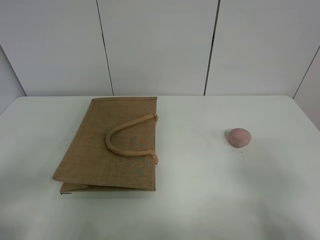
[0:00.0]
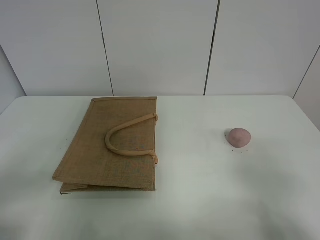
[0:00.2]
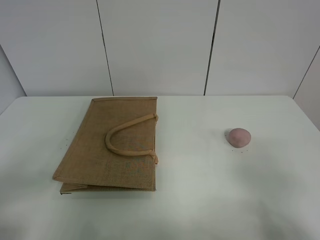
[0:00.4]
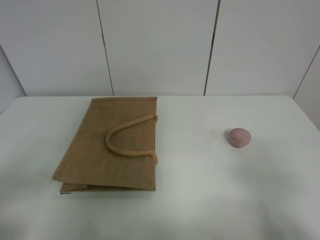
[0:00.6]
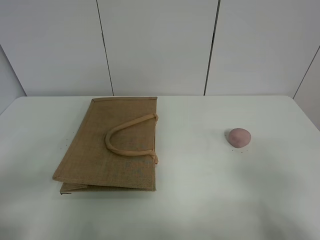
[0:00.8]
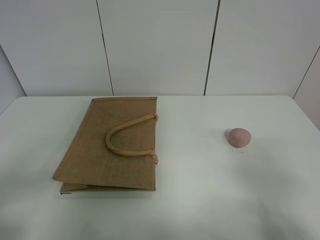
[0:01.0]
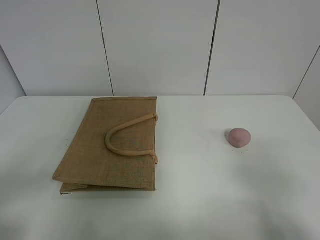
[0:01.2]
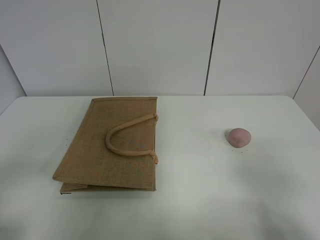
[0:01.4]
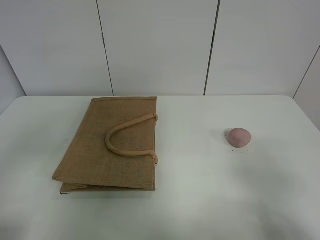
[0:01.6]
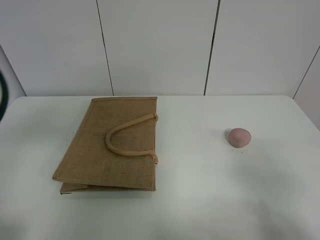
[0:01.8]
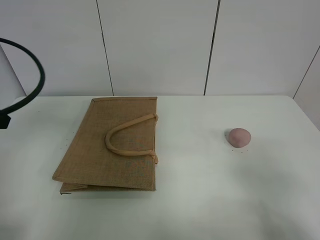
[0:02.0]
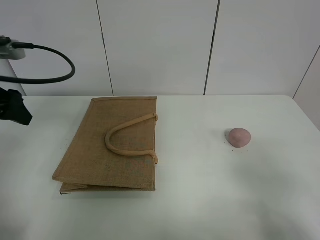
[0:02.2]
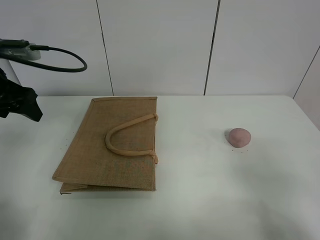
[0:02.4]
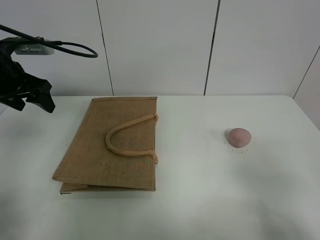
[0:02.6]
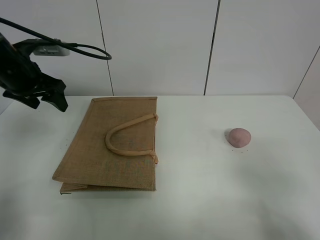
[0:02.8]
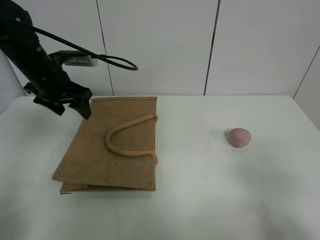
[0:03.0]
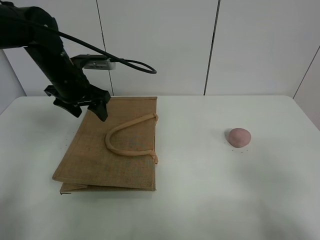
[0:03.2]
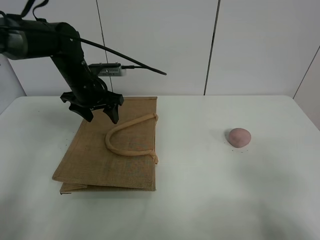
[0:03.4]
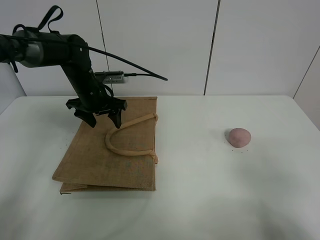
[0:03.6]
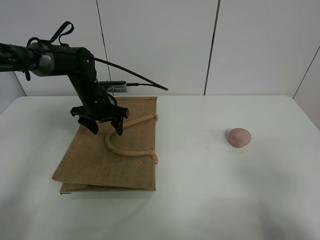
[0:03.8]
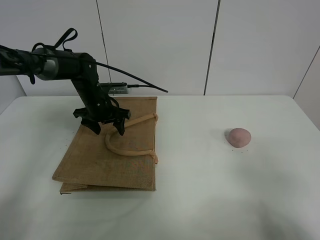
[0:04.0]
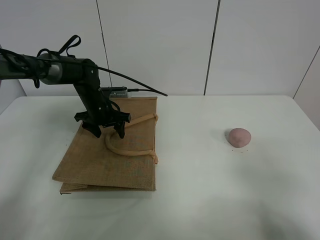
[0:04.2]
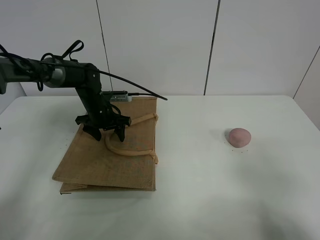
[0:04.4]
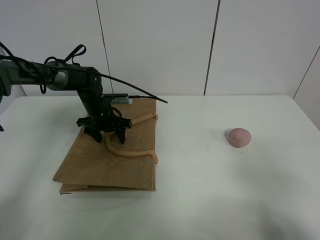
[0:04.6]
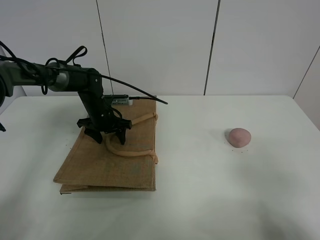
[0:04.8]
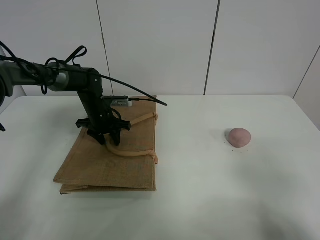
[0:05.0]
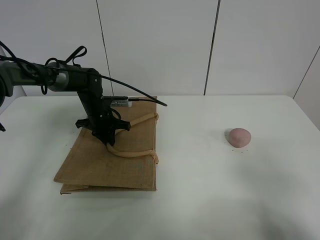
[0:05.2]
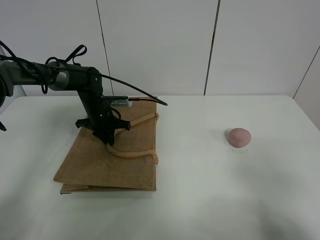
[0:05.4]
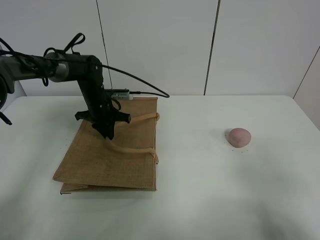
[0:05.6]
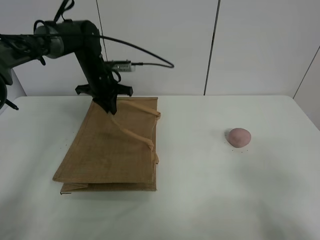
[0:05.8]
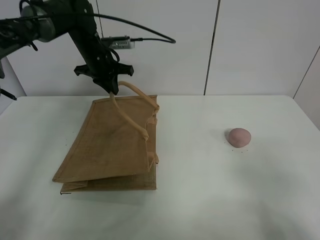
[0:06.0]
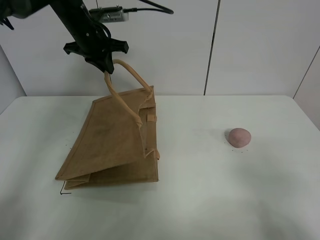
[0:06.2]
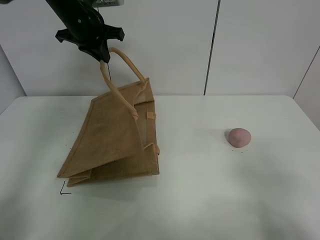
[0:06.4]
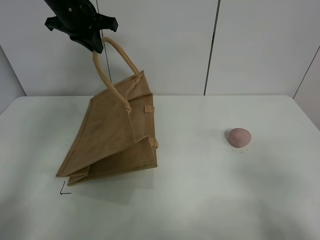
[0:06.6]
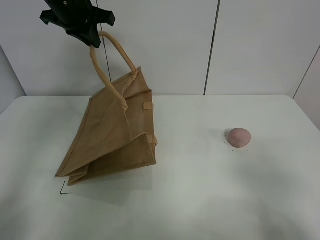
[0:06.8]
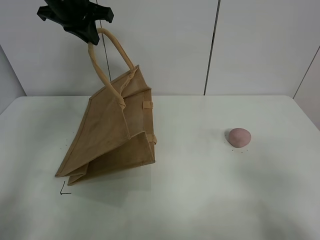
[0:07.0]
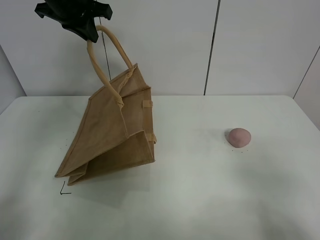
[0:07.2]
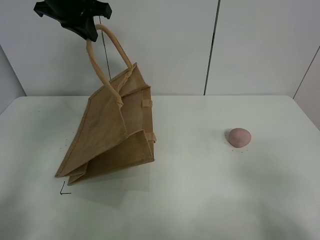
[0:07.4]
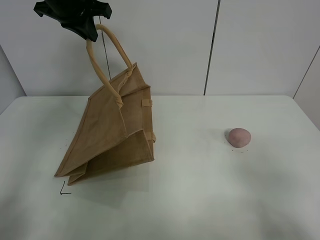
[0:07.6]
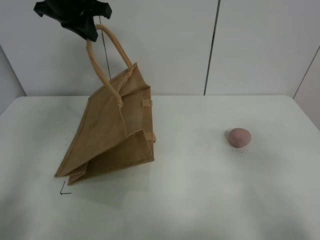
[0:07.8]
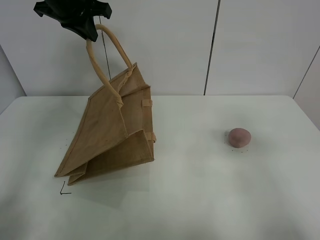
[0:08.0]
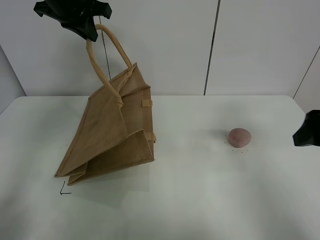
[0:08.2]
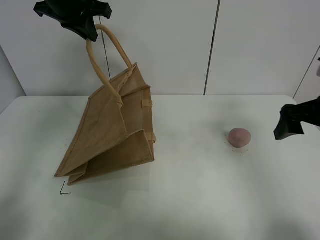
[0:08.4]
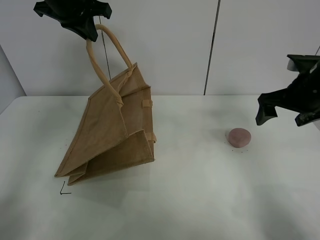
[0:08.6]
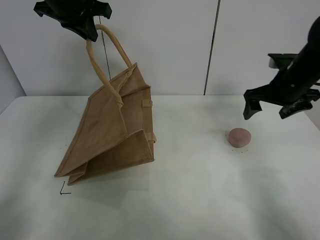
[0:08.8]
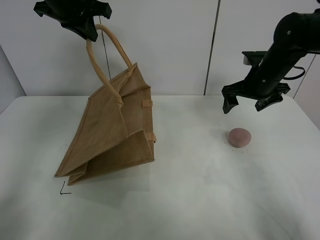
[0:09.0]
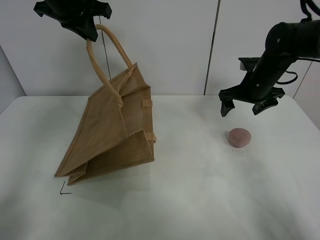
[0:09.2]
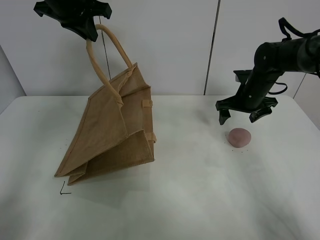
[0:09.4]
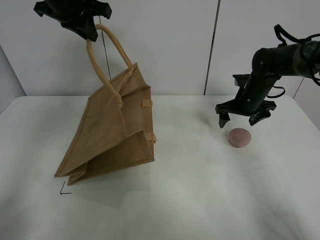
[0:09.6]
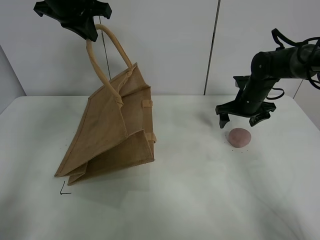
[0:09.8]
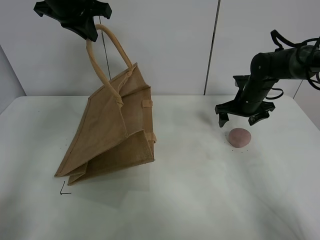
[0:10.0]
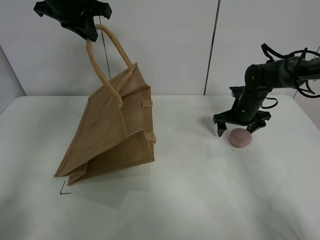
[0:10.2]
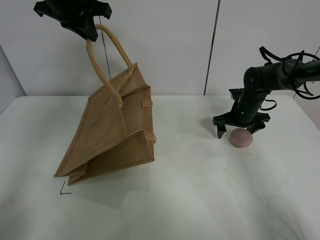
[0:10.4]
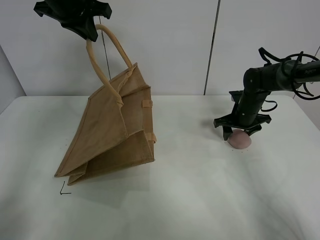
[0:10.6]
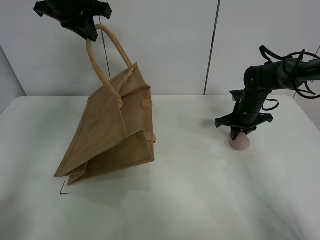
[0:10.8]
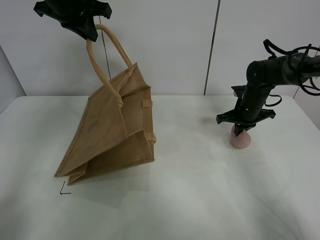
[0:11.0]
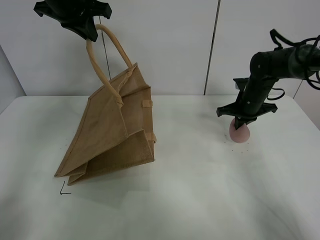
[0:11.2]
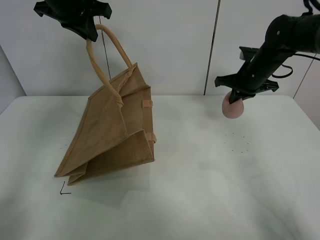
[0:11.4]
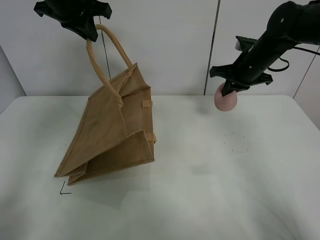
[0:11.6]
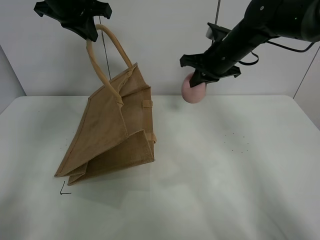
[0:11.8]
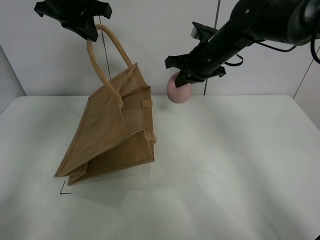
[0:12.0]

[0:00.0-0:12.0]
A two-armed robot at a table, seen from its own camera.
Task of the whole recording: open the brown linen bag and put the peach in the bag.
Step, 0:00.0 to 0:07.2: Lift the handbag with left gripper.
Step, 0:07.4 to 0:11.0: Grasp the peach with right gripper.
0:01.6 to 0:03.0: The left gripper goes approximately 30 cm forward.
0:03.0 to 0:04.4: The left gripper travels downward and forward by roughly 15 cm.
0:04.4 to 0:06.0: The left gripper shifts some 15 cm upward, and closes up.
0:06.0 to 0:07.6: The left gripper shifts roughly 15 cm upward and backward.
0:07.6 to 0:09.0: The right gripper goes some 40 cm forward.
0:09.0 to 0:10.4: The right gripper moves downward, approximately 10 cm.
0:10.4 to 0:12.0: The right gripper goes some 20 cm upward and to the left, and closes up.

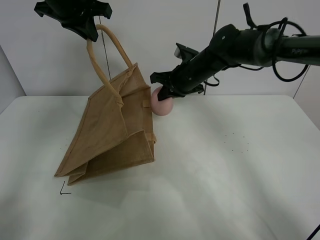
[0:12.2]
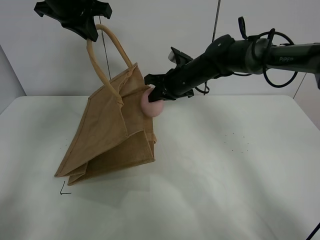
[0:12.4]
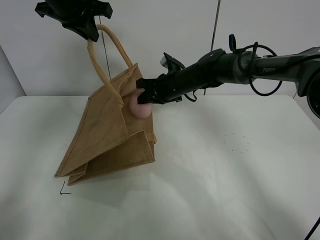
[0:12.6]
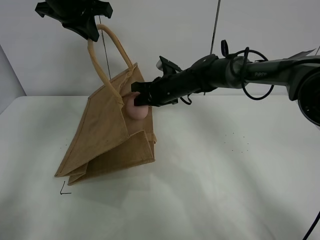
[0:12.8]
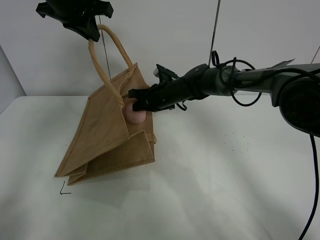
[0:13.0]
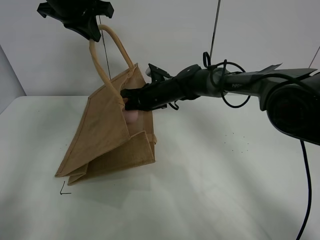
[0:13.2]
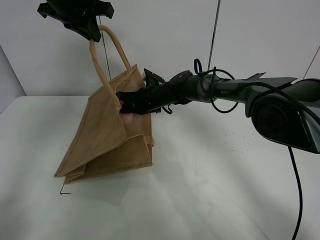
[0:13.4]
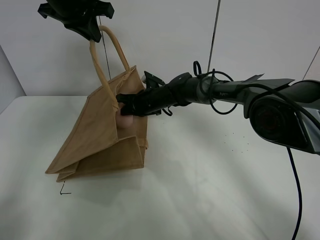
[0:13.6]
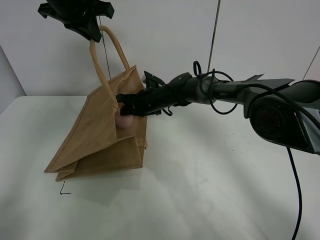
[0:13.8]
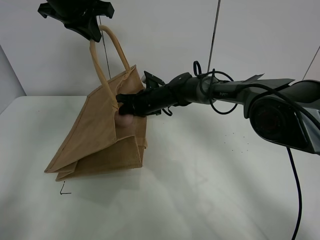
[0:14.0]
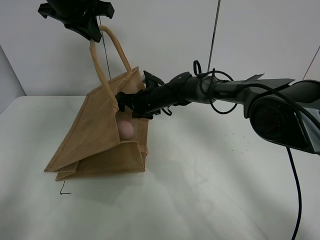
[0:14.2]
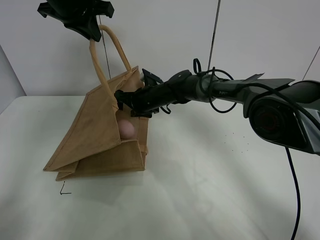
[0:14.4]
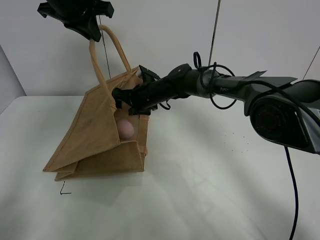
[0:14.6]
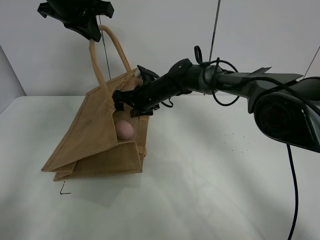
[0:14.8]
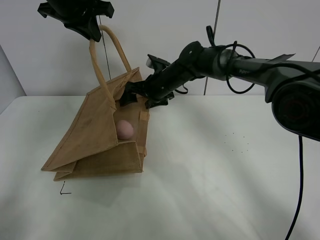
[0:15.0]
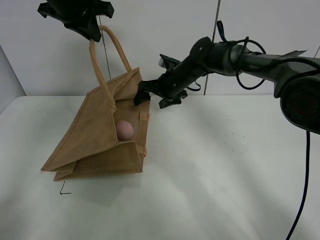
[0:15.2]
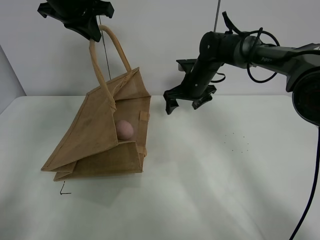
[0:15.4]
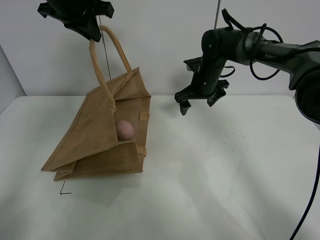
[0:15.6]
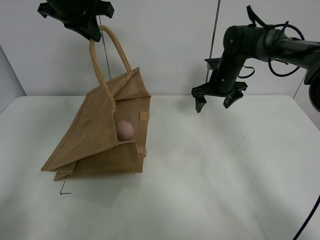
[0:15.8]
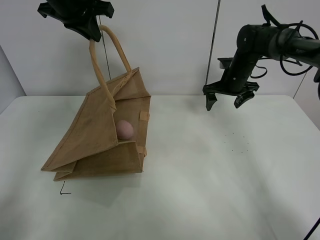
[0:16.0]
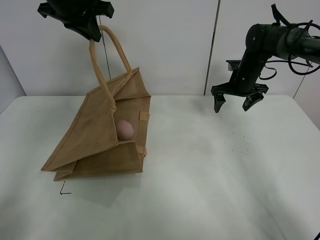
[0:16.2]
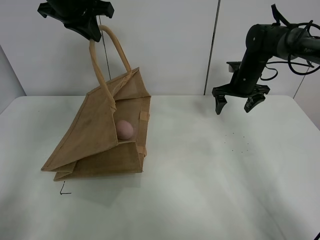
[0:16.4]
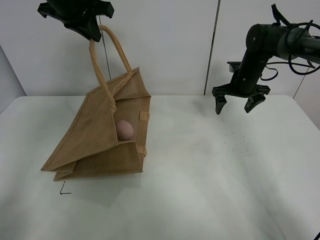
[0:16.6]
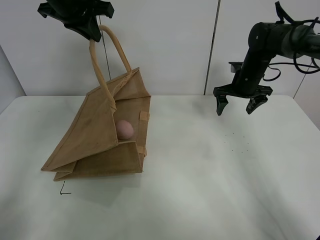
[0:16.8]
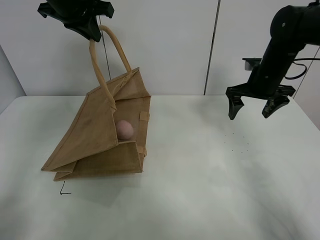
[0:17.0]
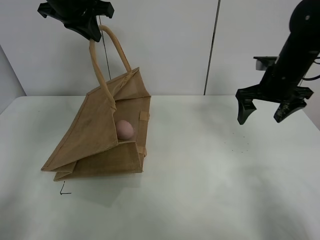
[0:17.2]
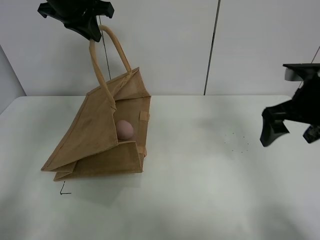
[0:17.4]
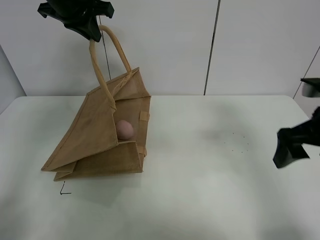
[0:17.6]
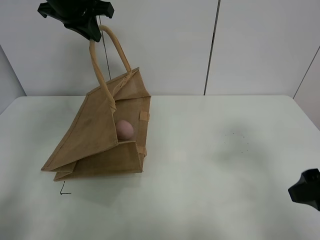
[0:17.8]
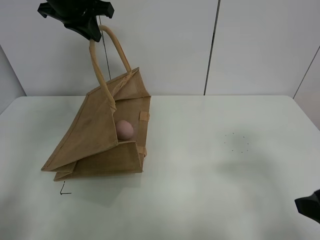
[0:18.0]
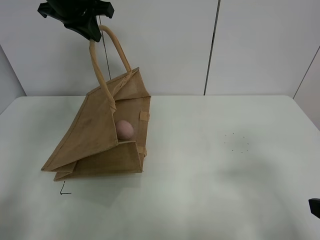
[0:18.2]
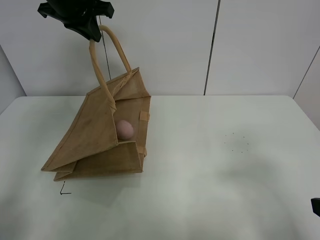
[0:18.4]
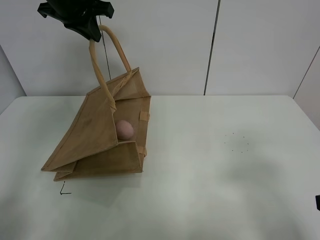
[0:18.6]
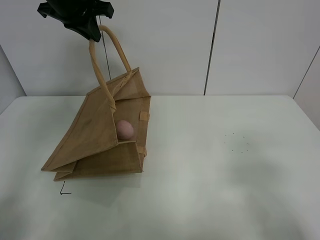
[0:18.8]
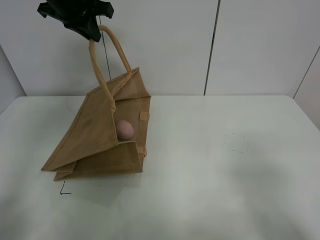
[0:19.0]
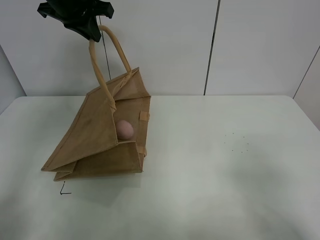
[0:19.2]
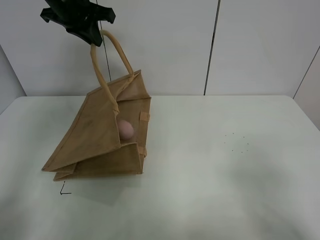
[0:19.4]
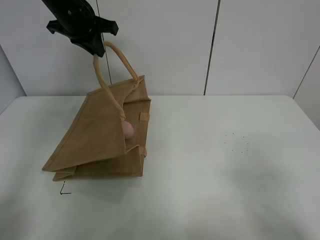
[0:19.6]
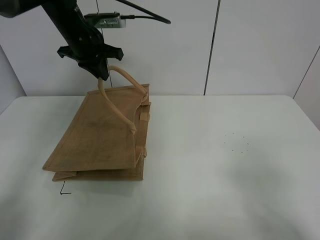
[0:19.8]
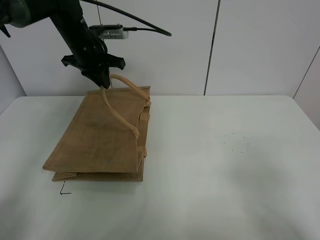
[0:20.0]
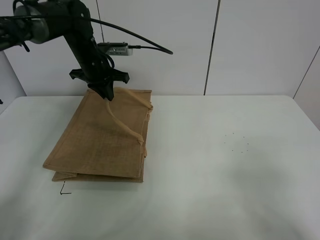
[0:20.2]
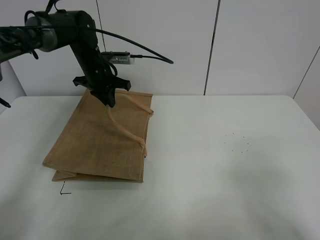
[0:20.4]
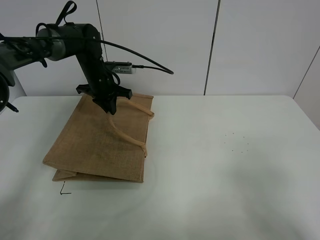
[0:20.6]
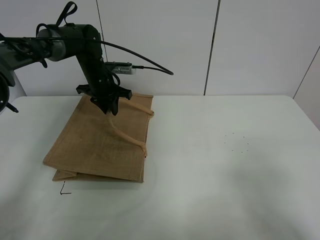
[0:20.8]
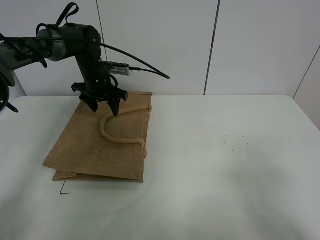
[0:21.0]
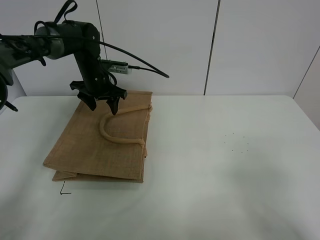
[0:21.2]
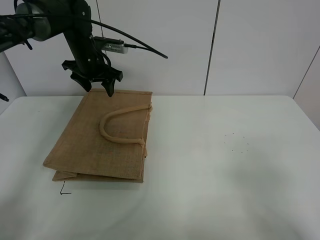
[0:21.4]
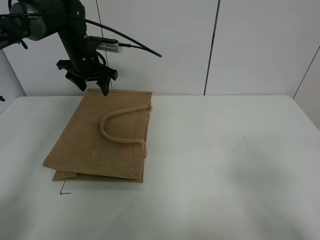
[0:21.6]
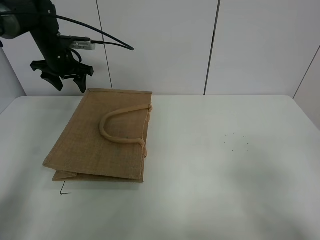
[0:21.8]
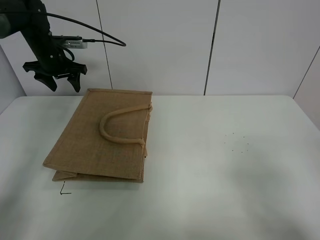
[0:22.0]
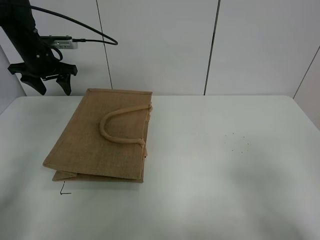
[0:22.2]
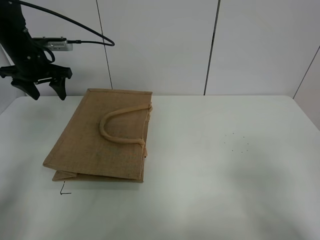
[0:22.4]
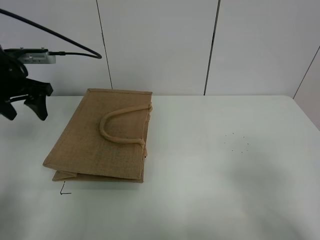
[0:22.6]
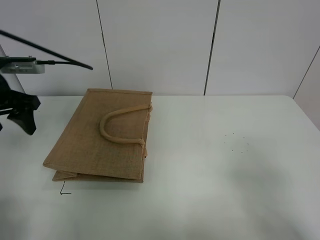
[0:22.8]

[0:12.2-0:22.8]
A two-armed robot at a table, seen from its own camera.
Task of the whole recording: open the brown linen bag and put the peach in the bag.
Step, 0:12.2 to 0:15.2: Place the peach in the handbag with right gripper.
Step, 0:15.4 to 0:21.2: Put down the handbag with left grippe.
0:12.2 to 0:13.8: The right gripper moves downward and to the left, some 15 cm.
0:13.8 to 0:15.2: The right gripper goes approximately 10 cm to the right and upward, and opens.
0:15.2 to 0:16.8: The right gripper goes some 15 cm to the right.
0:16.8 to 0:18.2: The right gripper travels backward by roughly 40 cm.
0:18.2 to 0:19.8: The left gripper goes some 10 cm downward, while the right gripper shifts approximately 5 cm backward.
0:19.8 to 0:21.2: The left gripper moves downward, some 10 cm, and opens.
0:21.2 to 0:22.8: The left gripper moves backward and to the left, some 25 cm.
